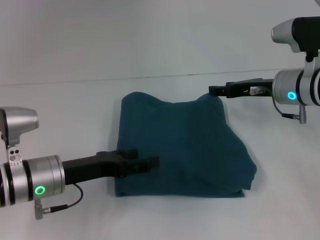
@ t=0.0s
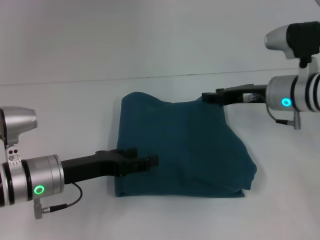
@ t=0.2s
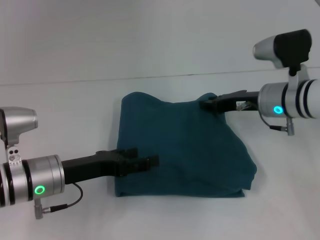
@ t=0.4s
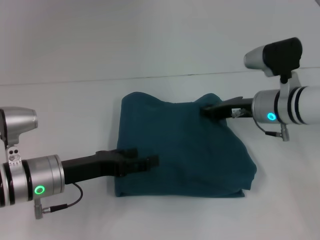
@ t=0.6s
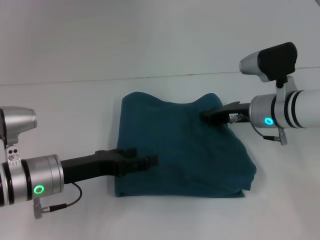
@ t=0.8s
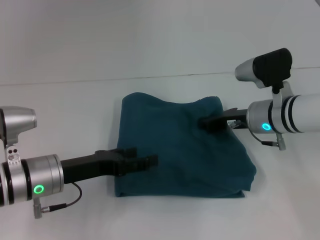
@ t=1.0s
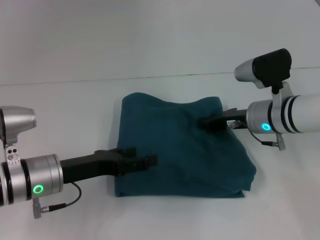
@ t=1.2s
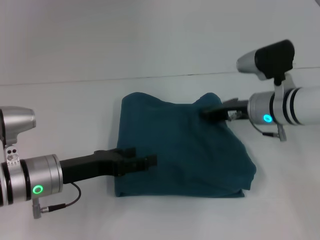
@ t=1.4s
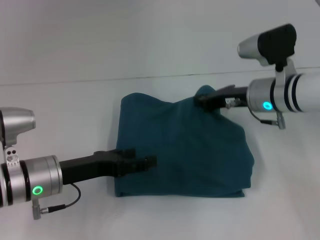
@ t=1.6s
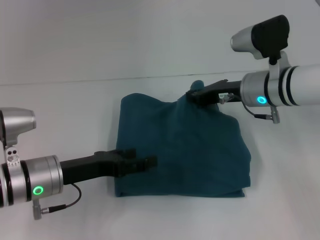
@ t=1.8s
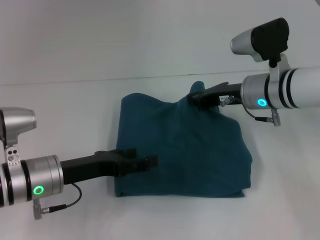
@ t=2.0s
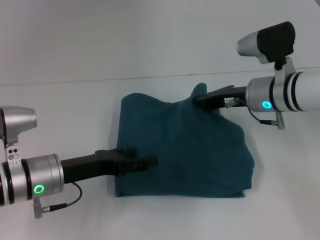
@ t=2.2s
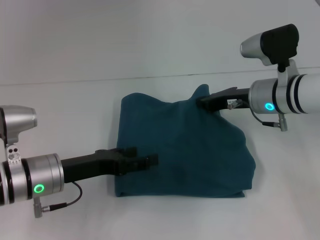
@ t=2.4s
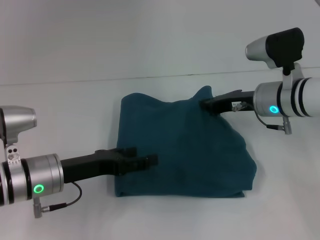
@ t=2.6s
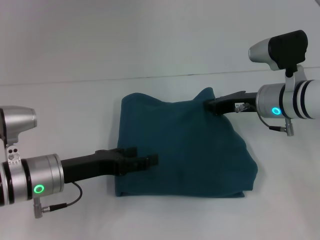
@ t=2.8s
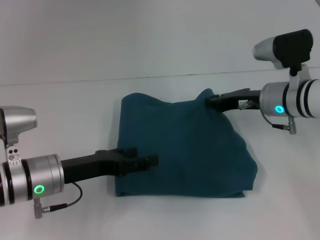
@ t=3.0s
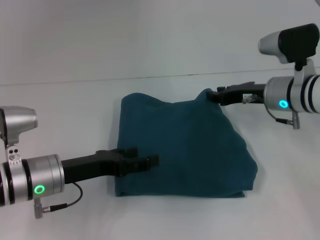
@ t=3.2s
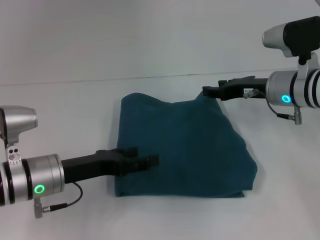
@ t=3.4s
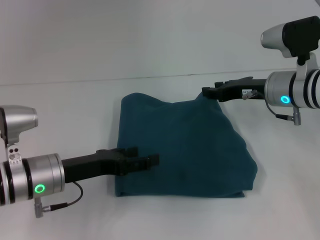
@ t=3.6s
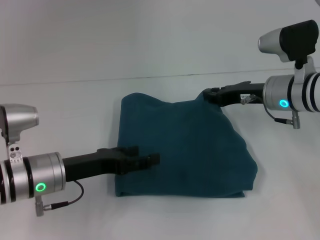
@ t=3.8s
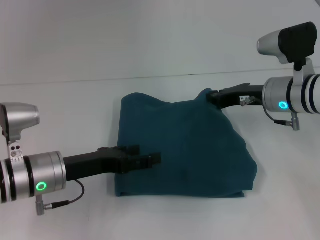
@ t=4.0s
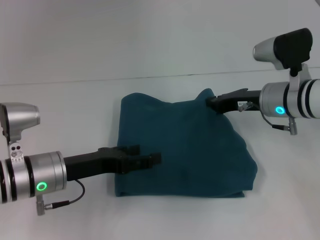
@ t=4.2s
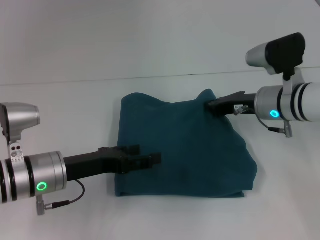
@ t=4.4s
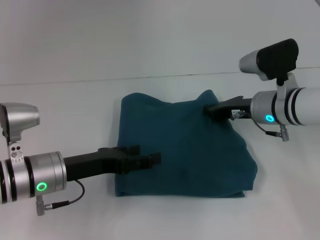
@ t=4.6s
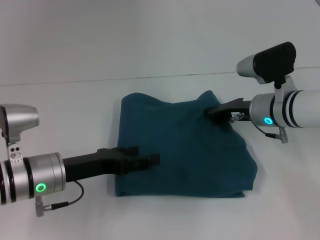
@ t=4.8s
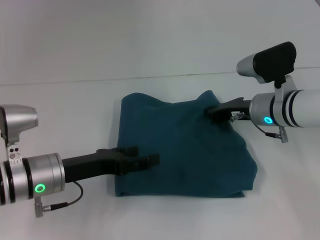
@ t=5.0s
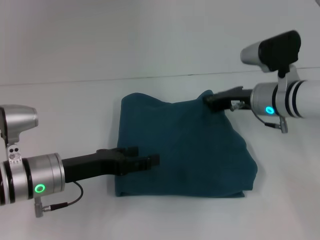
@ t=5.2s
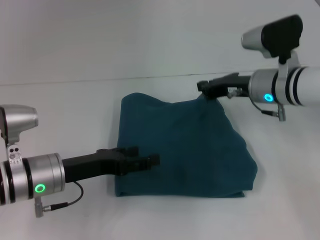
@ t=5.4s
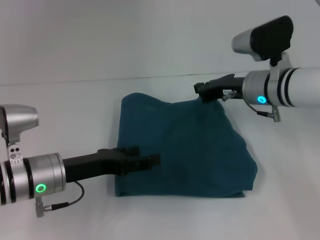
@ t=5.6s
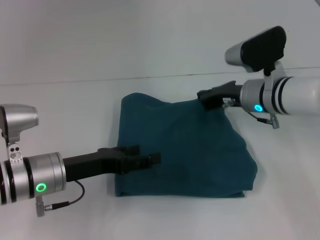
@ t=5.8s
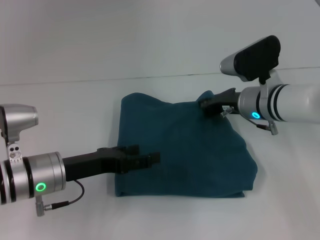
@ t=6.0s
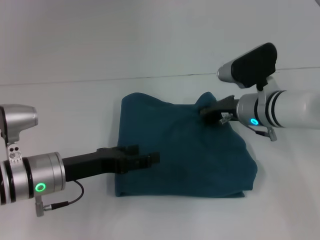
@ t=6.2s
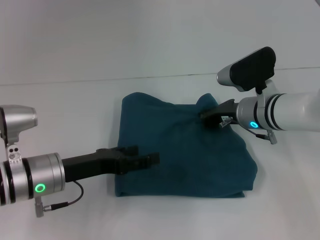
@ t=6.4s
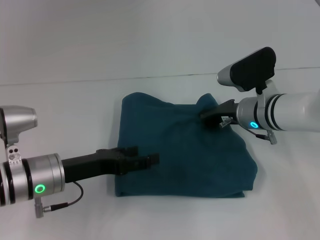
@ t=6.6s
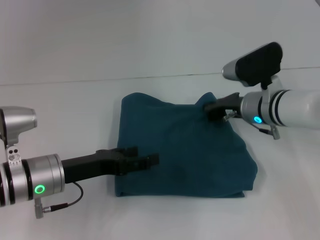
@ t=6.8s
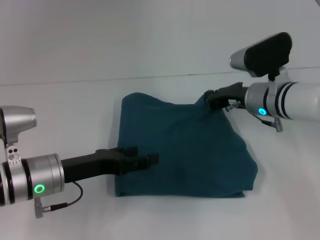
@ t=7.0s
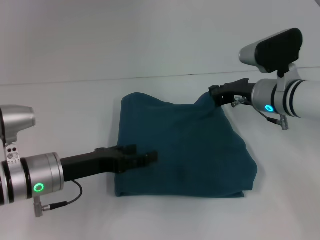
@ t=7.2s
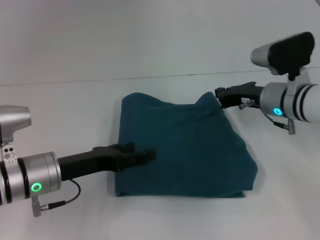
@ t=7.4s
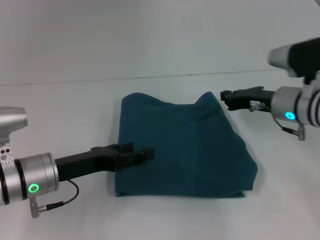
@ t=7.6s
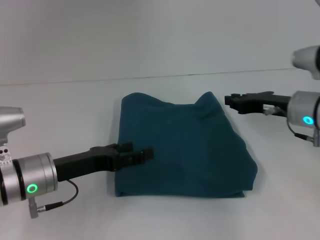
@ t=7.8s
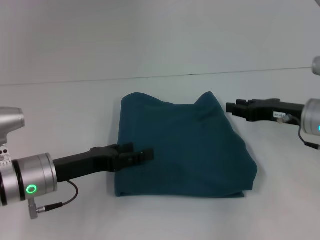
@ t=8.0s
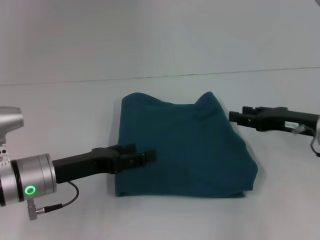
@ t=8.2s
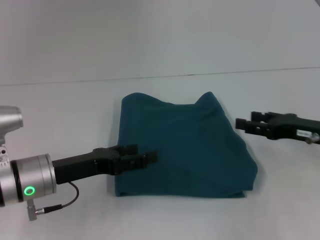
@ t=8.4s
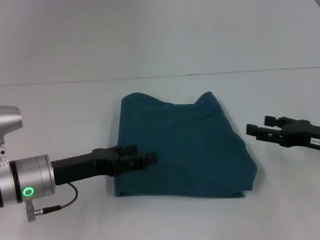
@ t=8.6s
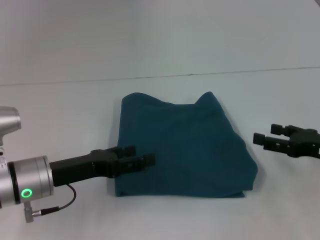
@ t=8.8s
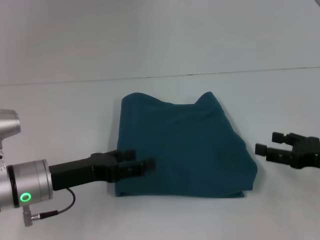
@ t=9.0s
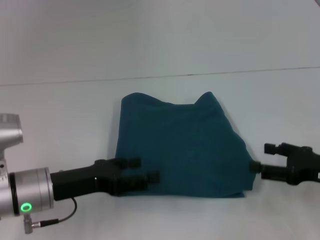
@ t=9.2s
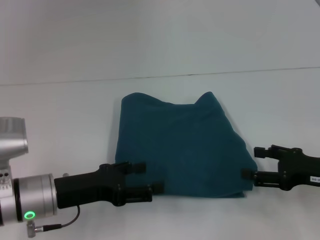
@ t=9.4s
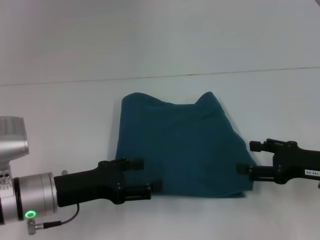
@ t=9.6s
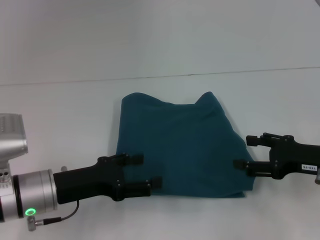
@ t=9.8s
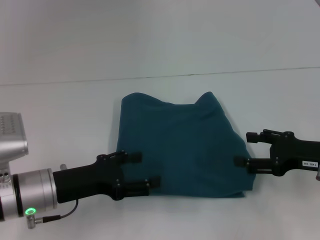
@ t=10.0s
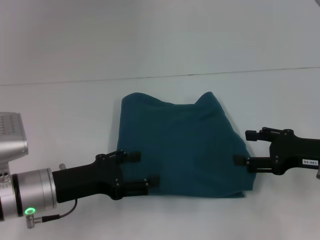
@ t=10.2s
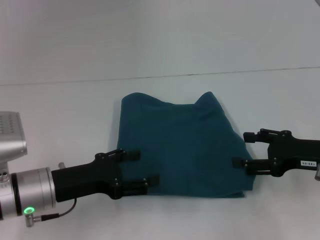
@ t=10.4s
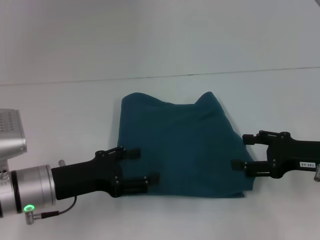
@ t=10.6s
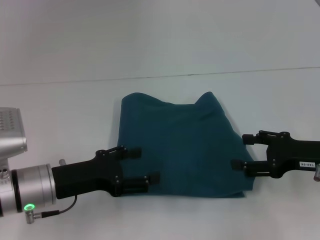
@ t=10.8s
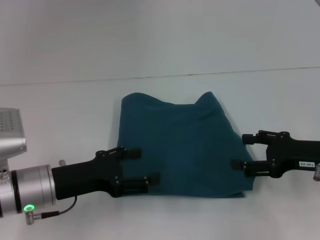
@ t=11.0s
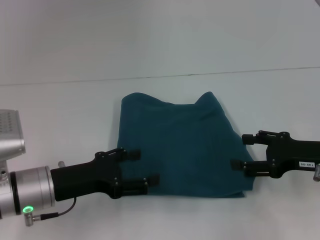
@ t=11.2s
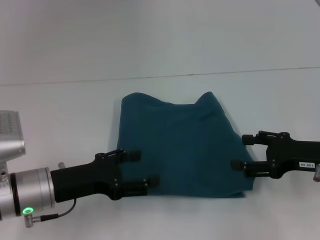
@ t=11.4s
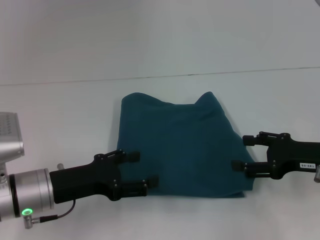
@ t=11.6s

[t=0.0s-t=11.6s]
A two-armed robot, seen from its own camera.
t=0.0s to t=1.4s: The right gripper closes.
t=1.4s to t=2.8s: The grippers move only a little.
t=2.8s to t=4.4s: The right gripper opens and closes again.
t=4.4s to t=7.2s: The grippers stay close to where they were, moving slightly.
t=7.2s to t=8.8s: The right gripper is displaced backward and to the right by approximately 20 cm, and opens up.
t=10.2s to t=11.6s: Both grippers stay about where they are.

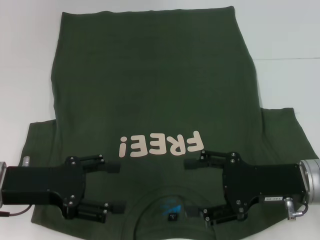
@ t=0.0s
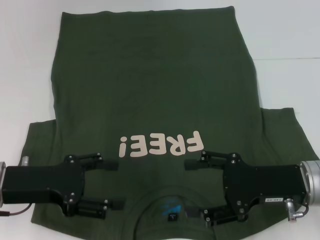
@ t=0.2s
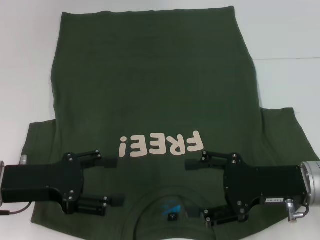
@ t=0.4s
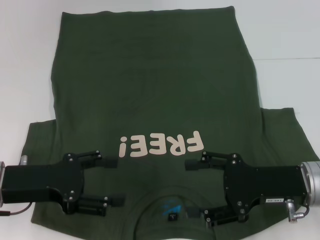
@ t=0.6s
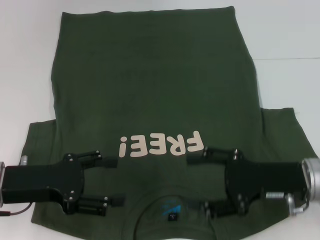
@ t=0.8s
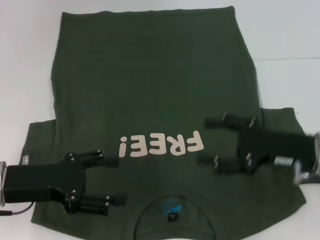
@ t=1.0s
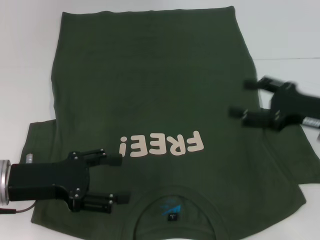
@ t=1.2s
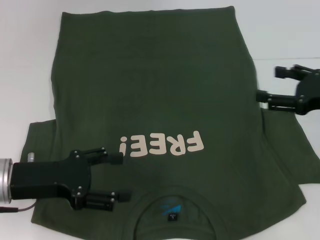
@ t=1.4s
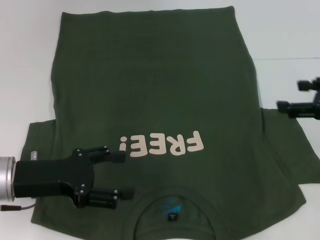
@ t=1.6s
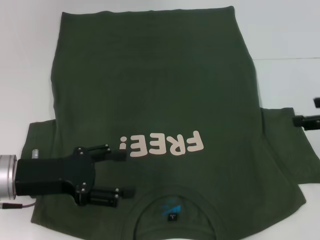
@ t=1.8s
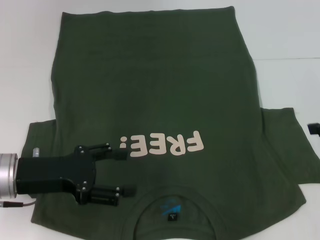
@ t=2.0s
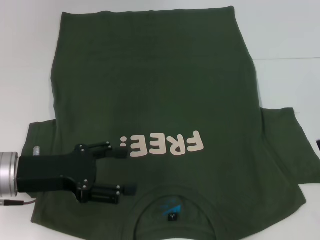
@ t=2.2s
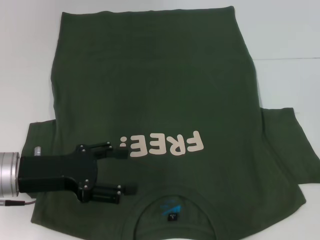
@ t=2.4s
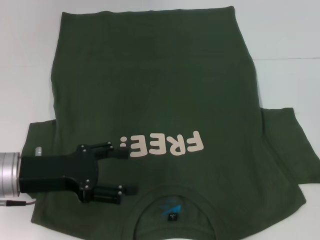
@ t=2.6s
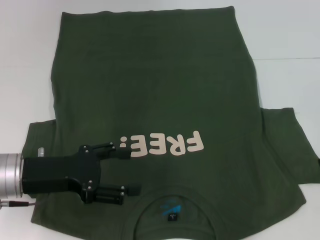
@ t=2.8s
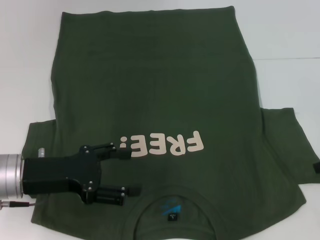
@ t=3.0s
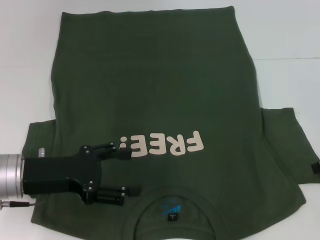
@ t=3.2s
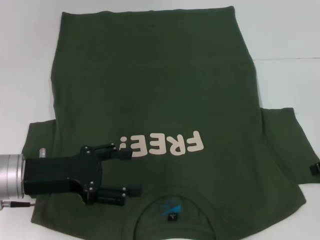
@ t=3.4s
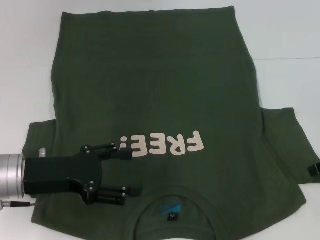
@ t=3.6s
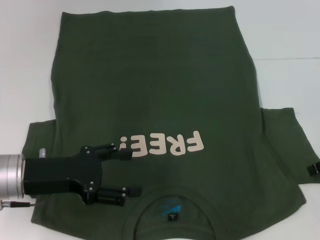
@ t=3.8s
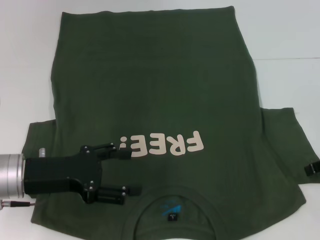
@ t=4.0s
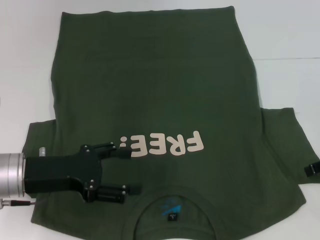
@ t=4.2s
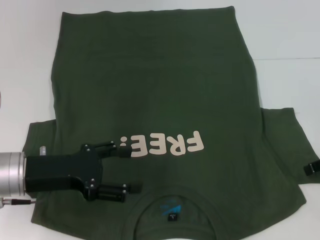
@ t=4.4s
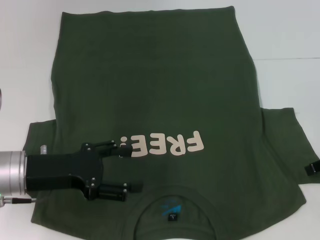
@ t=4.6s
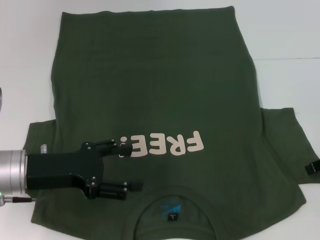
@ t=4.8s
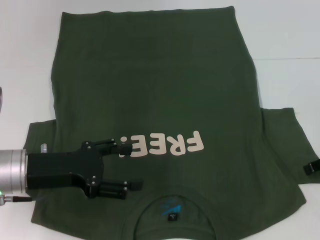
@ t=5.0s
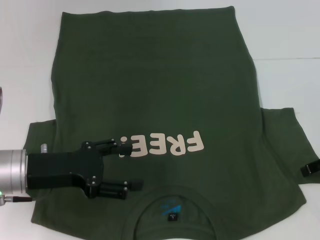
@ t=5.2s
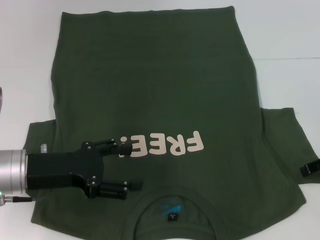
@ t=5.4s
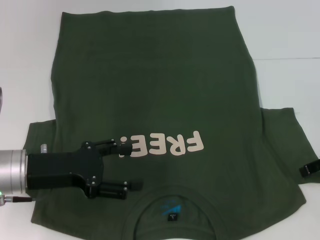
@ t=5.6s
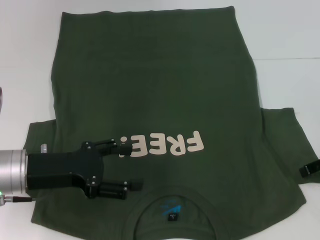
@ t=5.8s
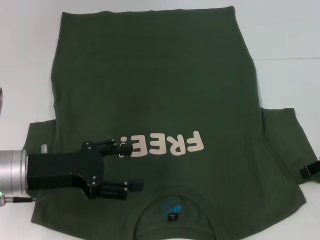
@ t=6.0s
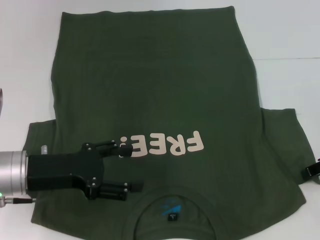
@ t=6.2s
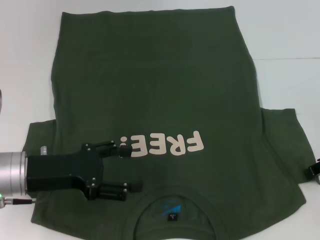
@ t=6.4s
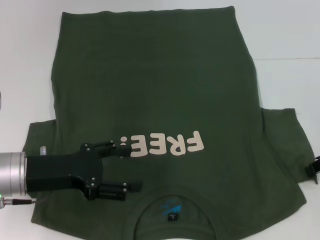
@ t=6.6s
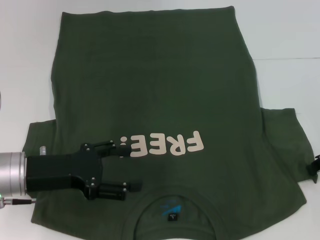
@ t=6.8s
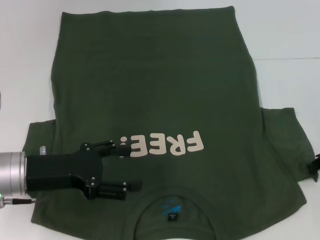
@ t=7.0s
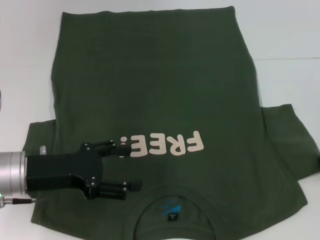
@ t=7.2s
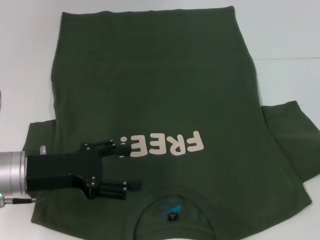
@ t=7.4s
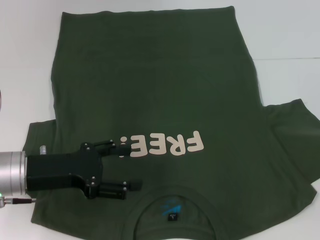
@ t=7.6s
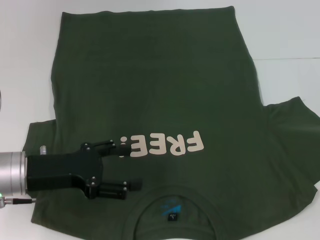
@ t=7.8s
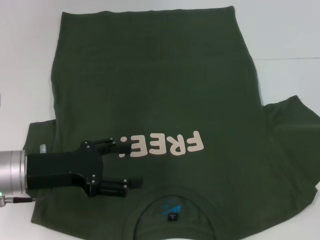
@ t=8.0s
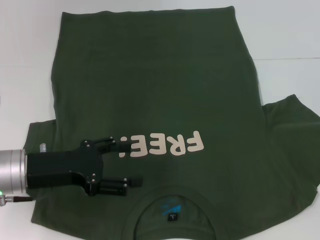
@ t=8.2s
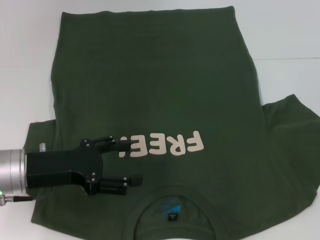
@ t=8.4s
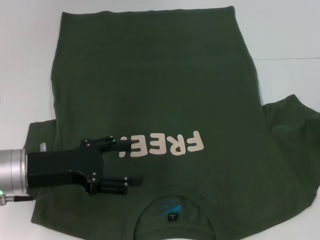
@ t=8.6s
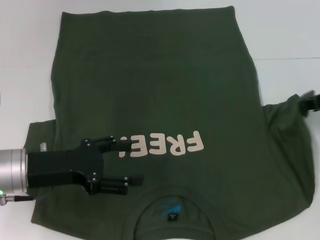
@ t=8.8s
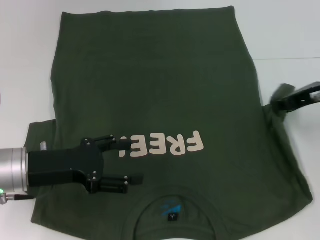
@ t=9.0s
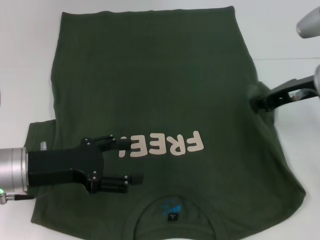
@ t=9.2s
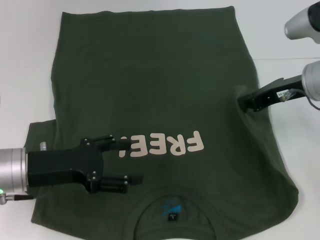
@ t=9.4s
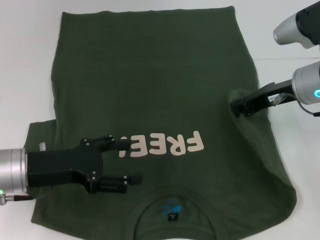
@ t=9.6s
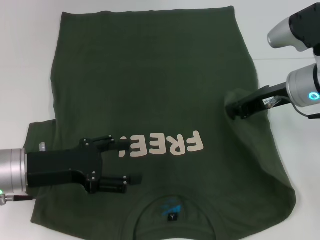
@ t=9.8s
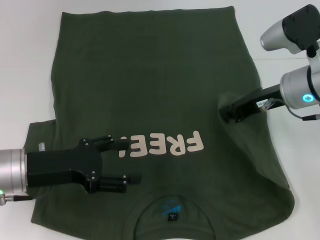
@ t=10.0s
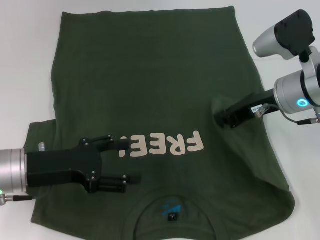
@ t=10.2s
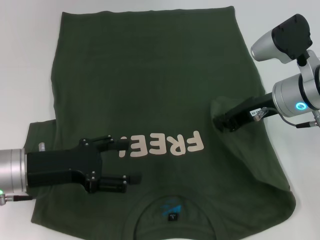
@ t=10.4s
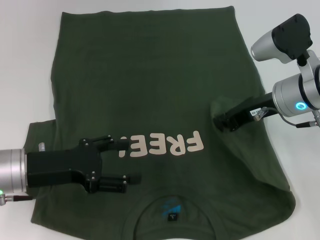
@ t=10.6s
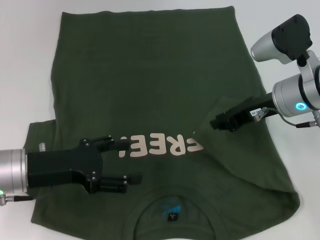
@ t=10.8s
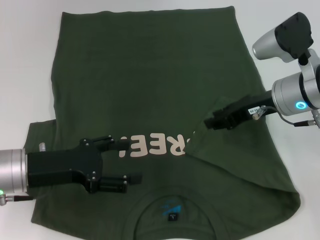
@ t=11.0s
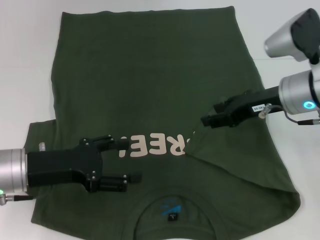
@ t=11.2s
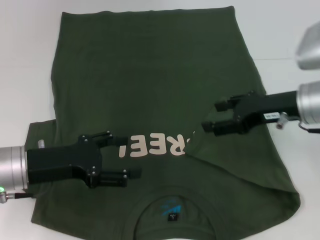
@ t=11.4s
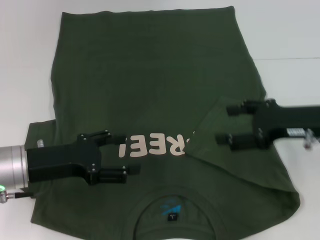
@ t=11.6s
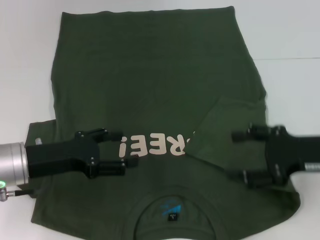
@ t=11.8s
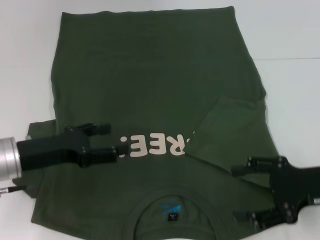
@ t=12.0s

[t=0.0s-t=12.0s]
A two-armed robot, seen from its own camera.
Step, t=0.0s to t=10.8s: Fold the bottom right sleeve with your right hand.
t=0.0s to t=1.6s: The right gripper moves to the right and upward, about 15 cm.
t=3.0s to t=4.4s: The grippers stay close to where they were, moving slightly.
t=4.4s to t=6.0s: The two grippers keep their place.
t=6.0s to t=7.6s: The right gripper closes.
t=7.6s to t=9.0s: The right gripper shifts approximately 10 cm to the left.
t=9.0s to t=10.4s: The right gripper heads to the left, covering roughly 10 cm.
t=10.4s to t=12.0s: The right gripper is displaced backward and to the right by approximately 15 cm, and opens up.
